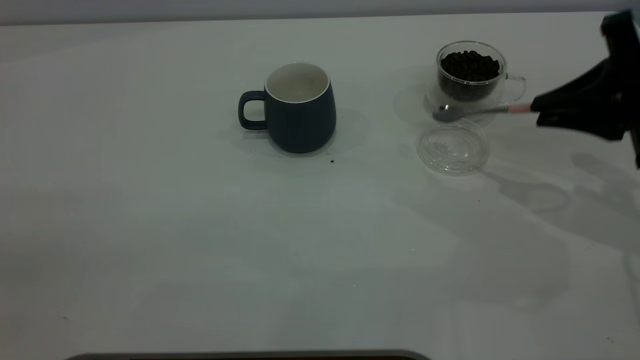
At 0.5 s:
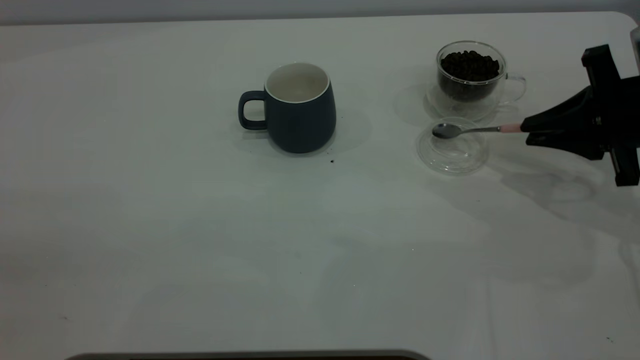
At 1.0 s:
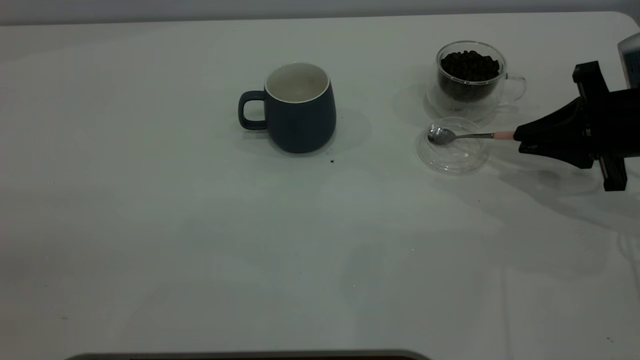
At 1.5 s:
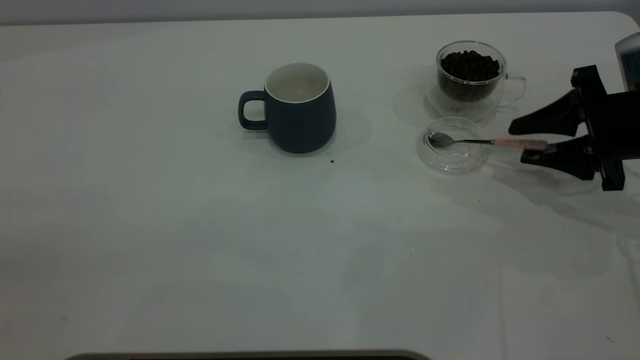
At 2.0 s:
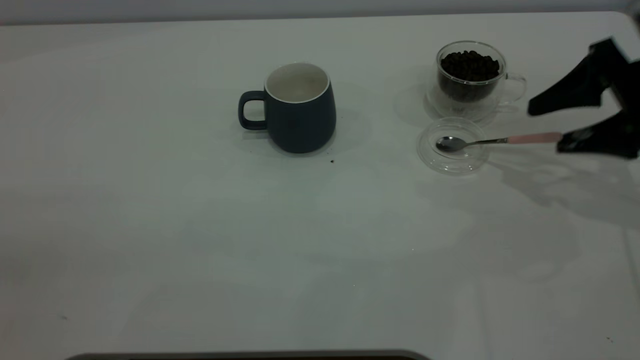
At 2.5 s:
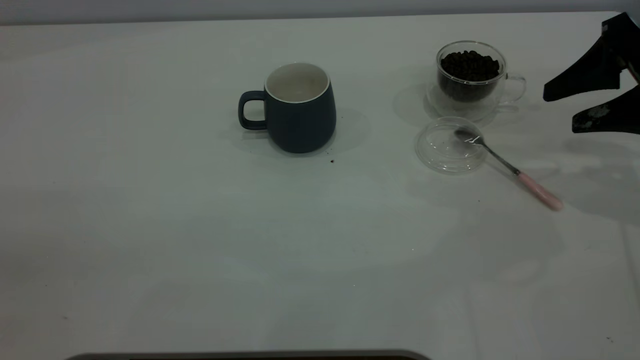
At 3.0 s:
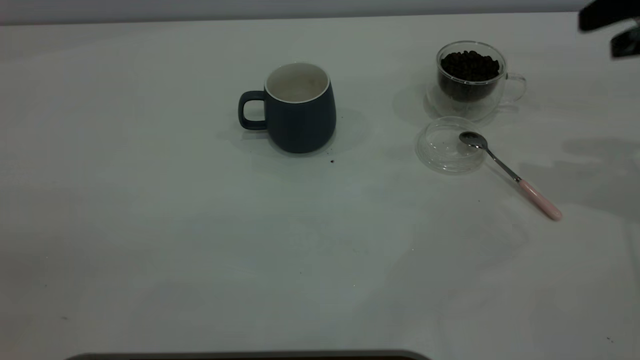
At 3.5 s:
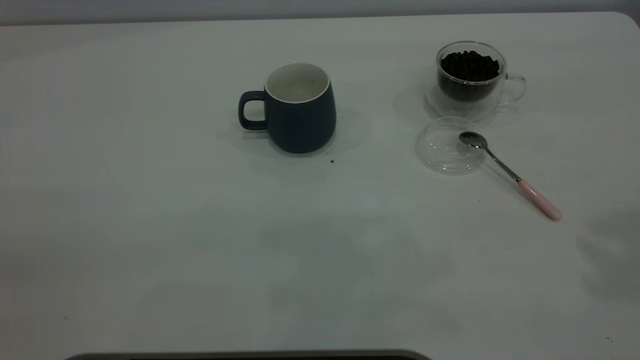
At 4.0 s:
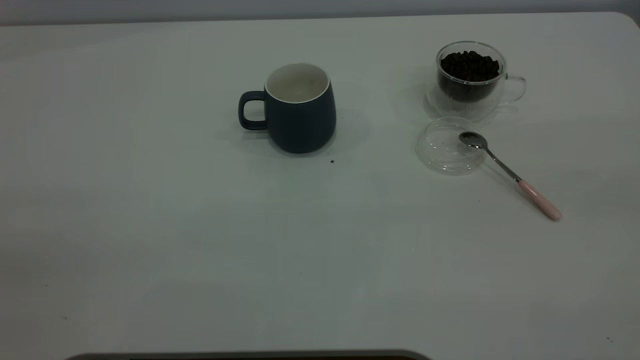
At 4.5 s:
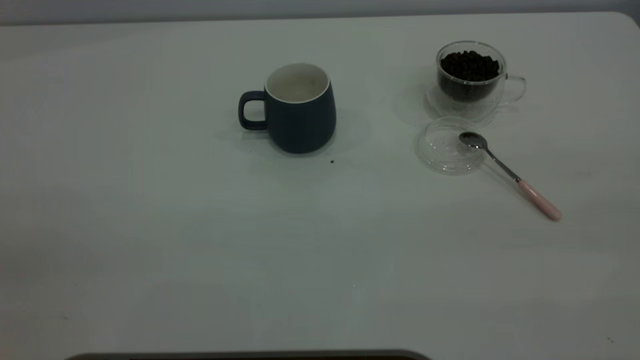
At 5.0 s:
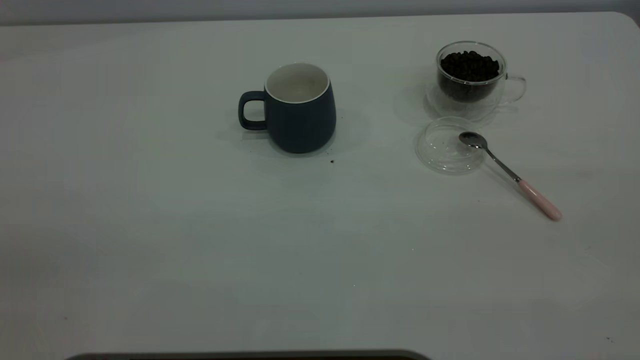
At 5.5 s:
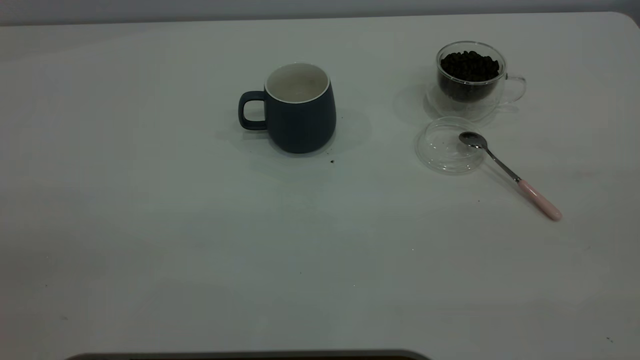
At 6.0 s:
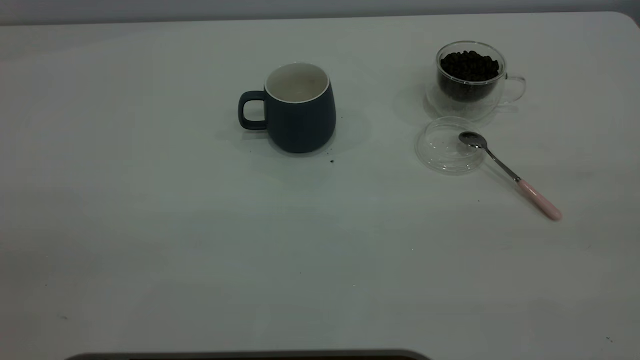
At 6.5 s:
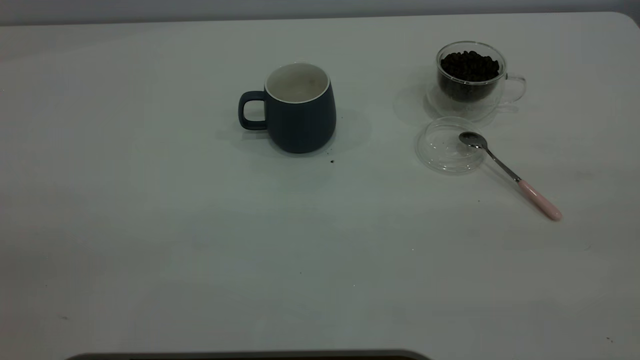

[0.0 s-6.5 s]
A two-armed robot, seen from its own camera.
Task of the whole recording: the left gripper place the grey cup in the center of the table, the right gripper take the pink spoon from the cup lid and scoop out the coffee beans from the coffee cup and put them into the grey cup, the right gripper put the spoon back into the cup lid.
Step, 0.0 to 2.5 s: Place the spoon back in its original place.
0.0 to 2.0 s: The right gripper opens its fingers.
2.0 to 4.5 s: The right gripper heads backward and upward, covering some 40 cm.

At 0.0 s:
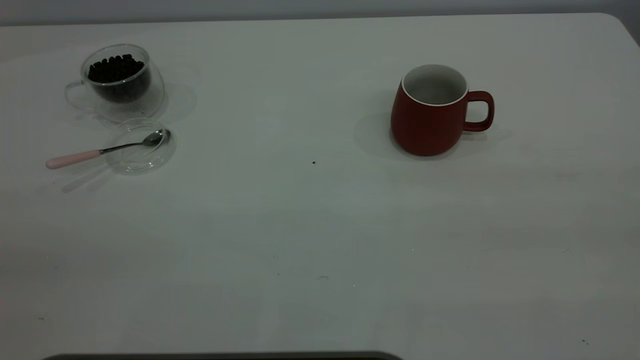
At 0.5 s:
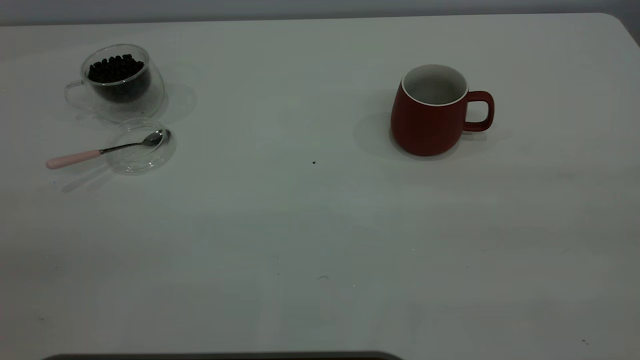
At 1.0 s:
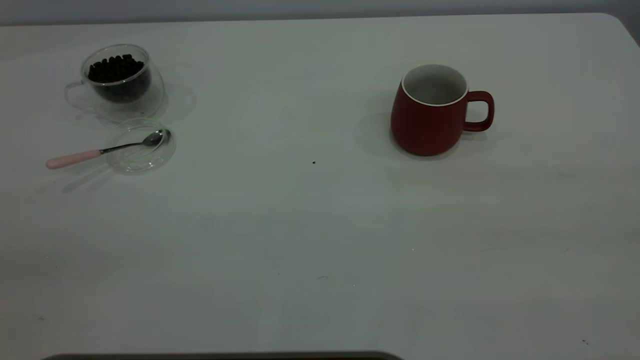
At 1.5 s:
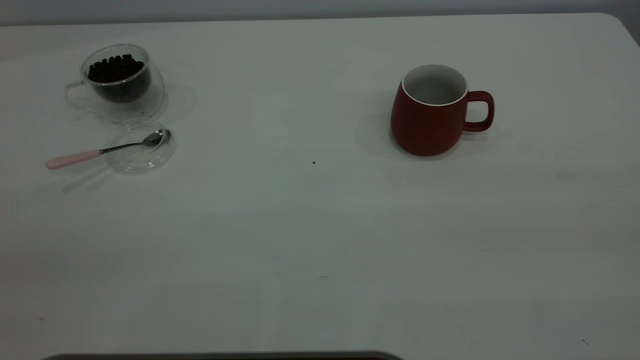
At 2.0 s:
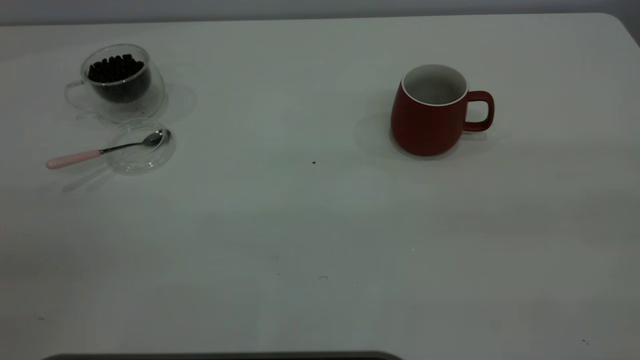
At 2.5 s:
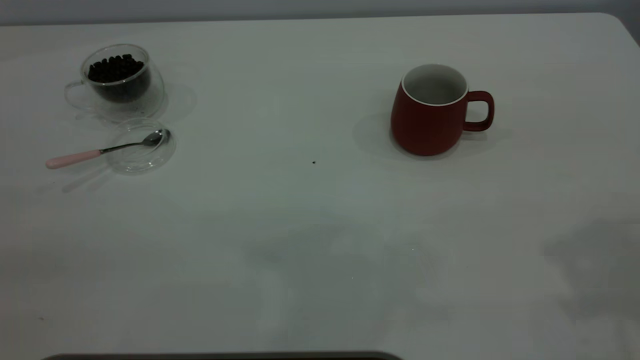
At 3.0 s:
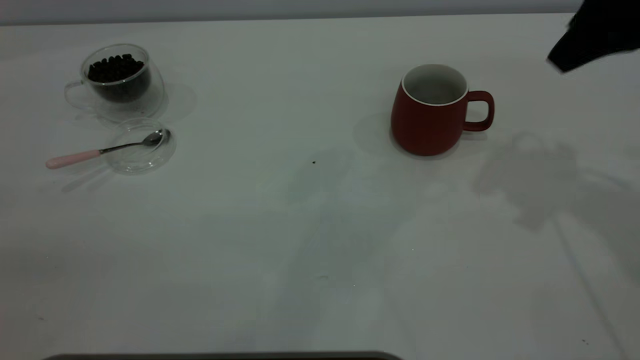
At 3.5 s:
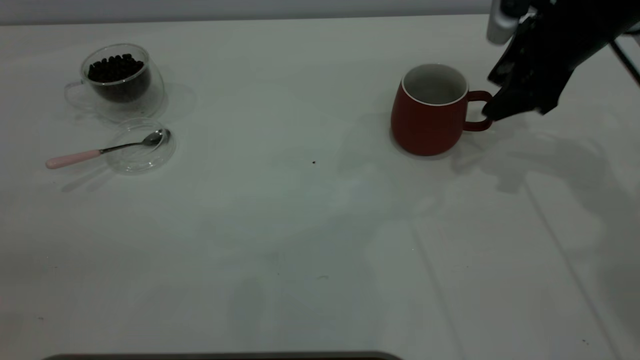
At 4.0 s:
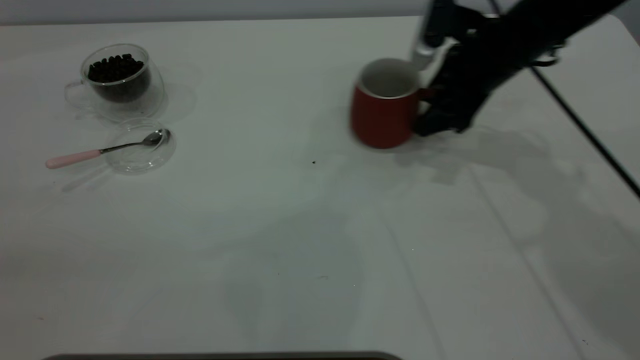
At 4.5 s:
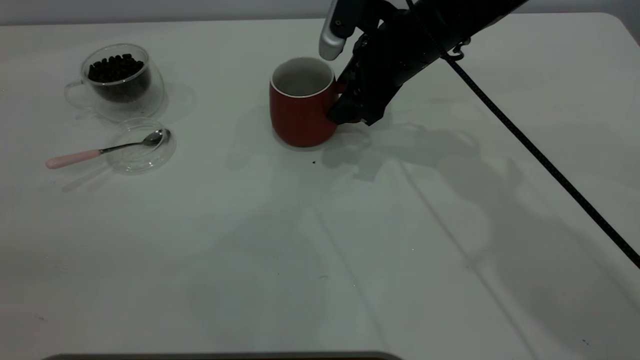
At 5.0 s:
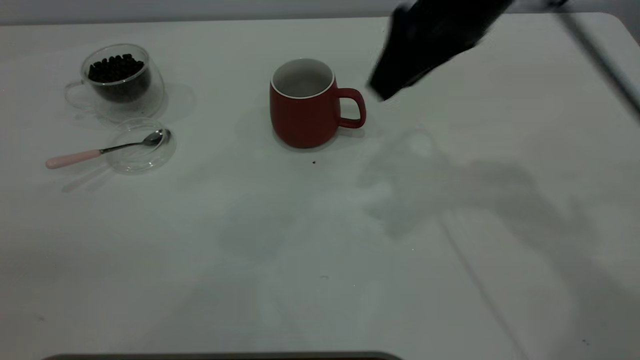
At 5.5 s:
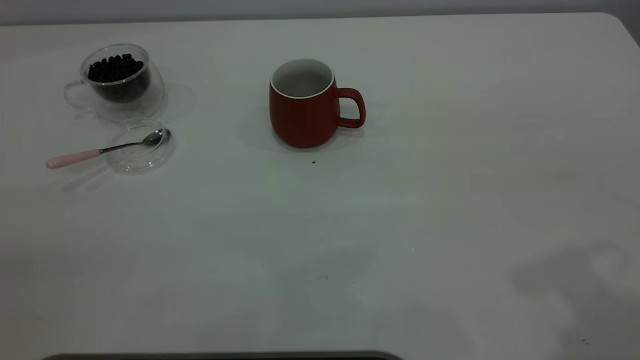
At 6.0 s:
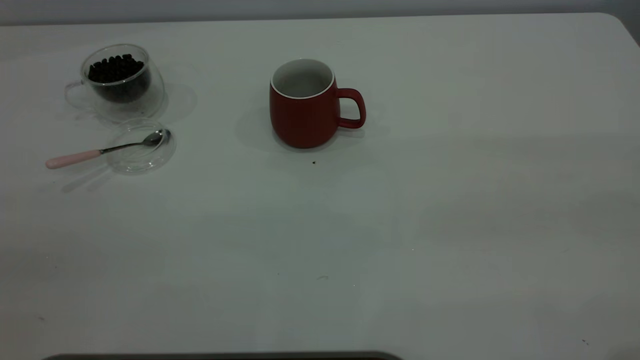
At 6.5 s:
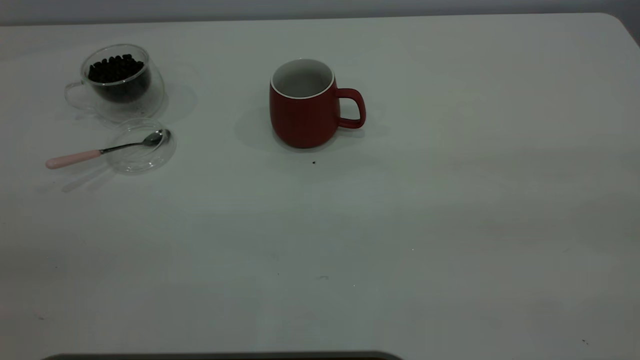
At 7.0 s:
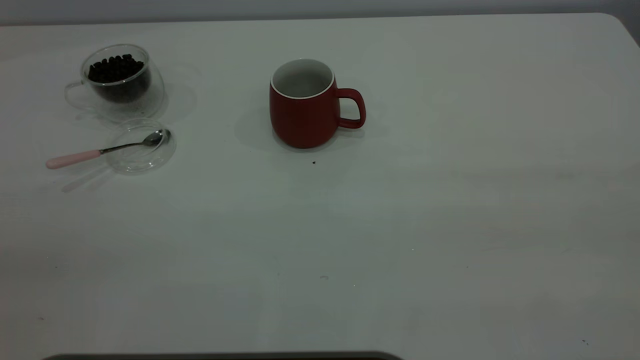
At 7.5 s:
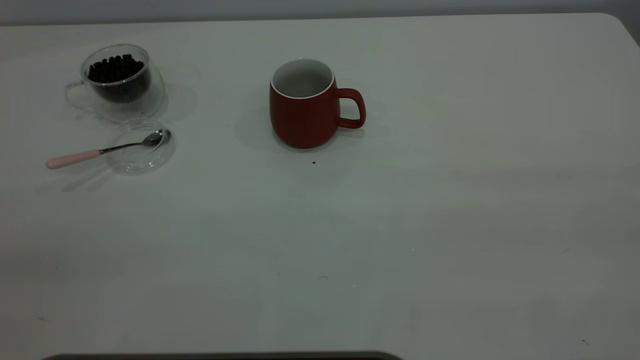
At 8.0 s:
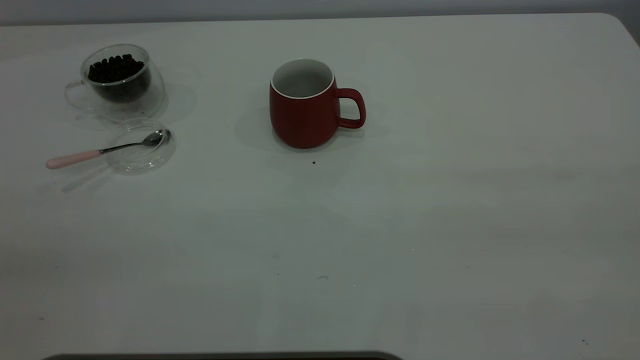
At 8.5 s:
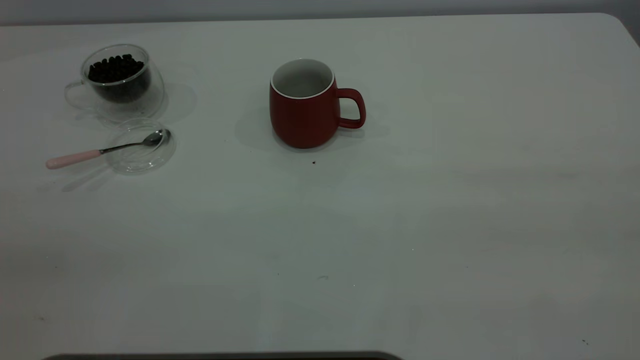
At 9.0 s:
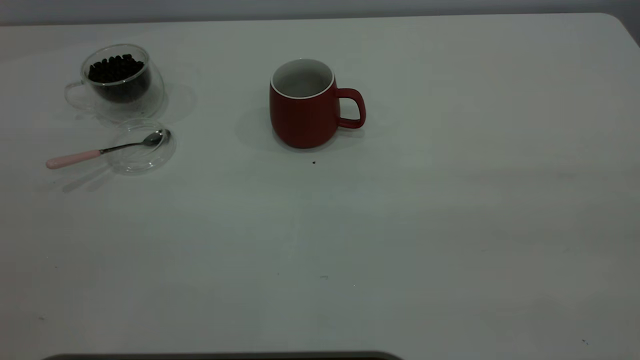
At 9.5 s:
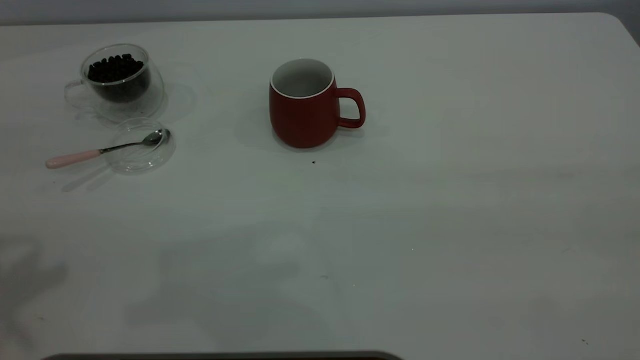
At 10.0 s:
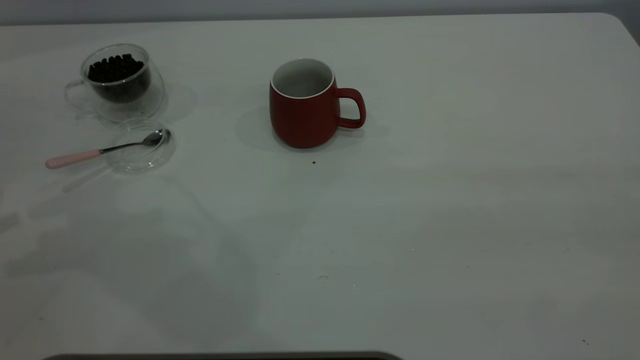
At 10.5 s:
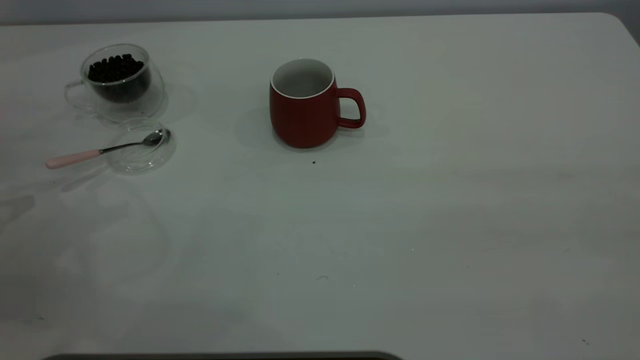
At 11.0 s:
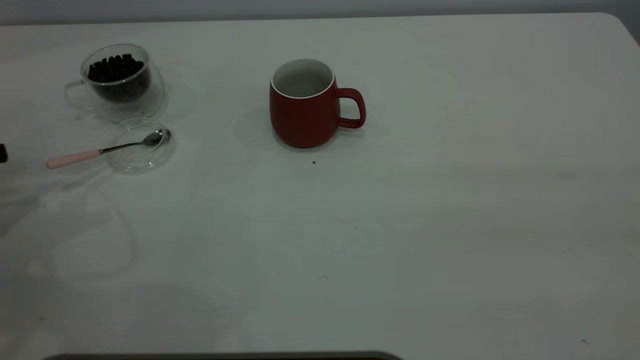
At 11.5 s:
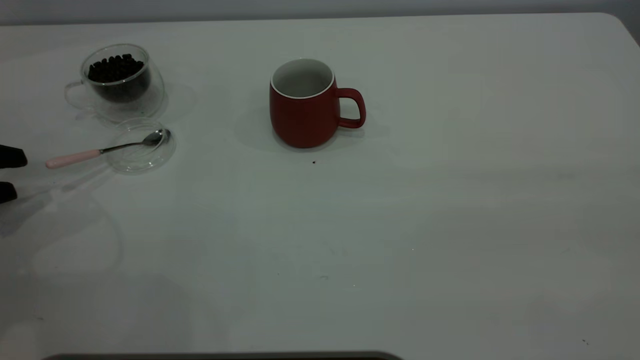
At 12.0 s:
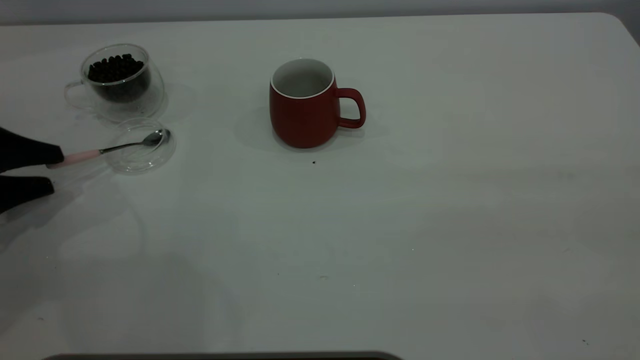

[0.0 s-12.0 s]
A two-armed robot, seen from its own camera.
Task of the whole recording: the right gripper place the red cup in the center of the table, the left gripper take the pink spoon from the cup lid and scoop out the coffee beans from the coffee cup and put them into the red cup, the left gripper put the spoon back into the cup lid.
Step, 0.0 to 4.5 s: Move the cup to the center of view.
2.0 to 4.0 s: The right gripper shifts about 50 cm forward and downward.
4.0 to 6.0 s: The right gripper moves backward and upward, roughly 40 cm.
10.0 to 12.0 s: The left gripper shifts some 15 cm downward, and opens up.

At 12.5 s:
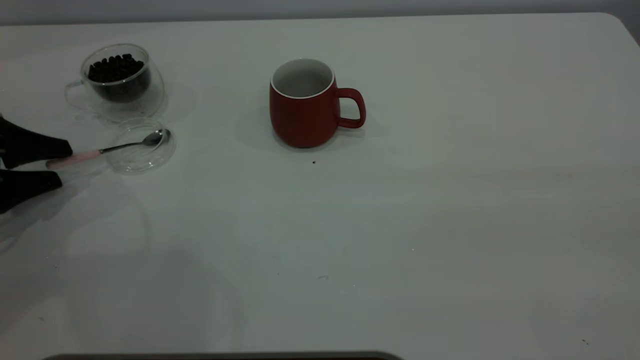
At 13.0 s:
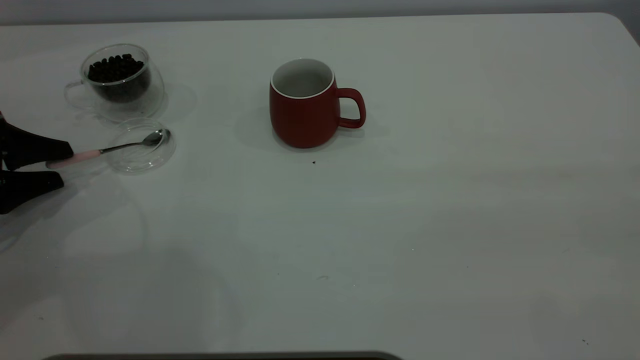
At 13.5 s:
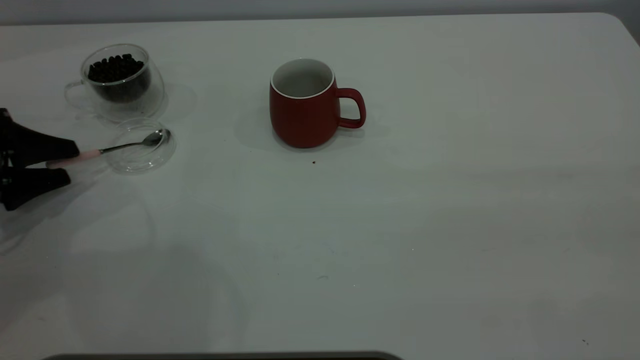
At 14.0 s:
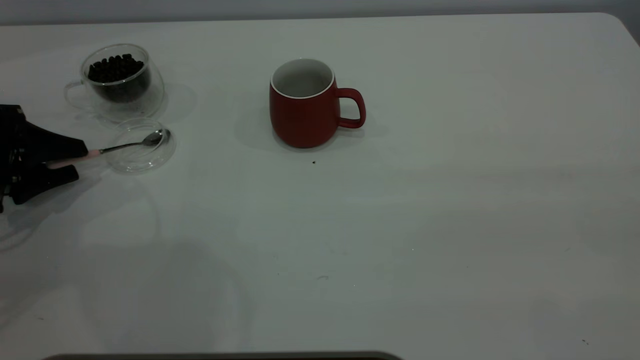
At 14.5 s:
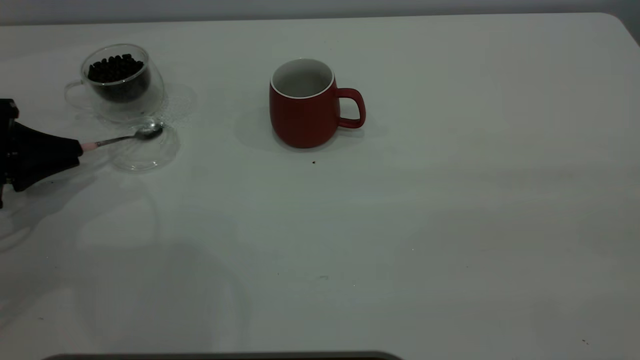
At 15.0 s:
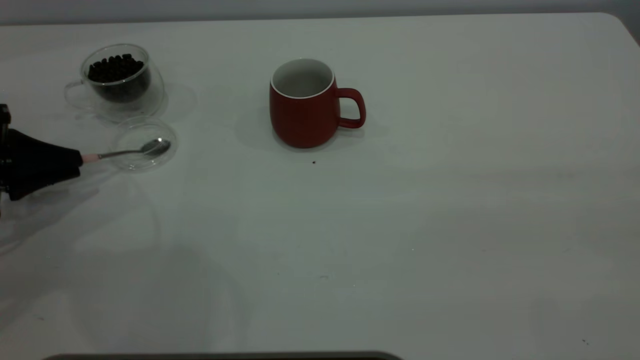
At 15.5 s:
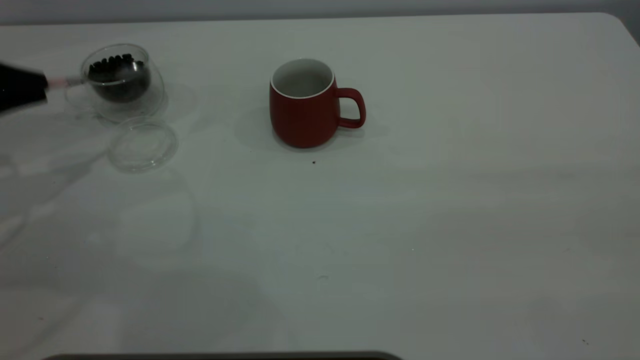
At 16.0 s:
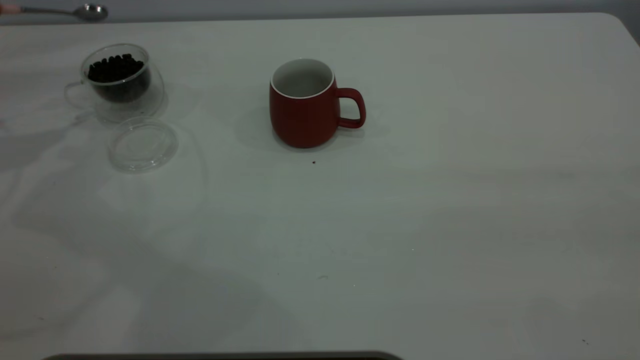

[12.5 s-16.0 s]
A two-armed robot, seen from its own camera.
Task of the whole recording: the right gripper place the red cup in the center of the table, the left gripper take the pink spoon from the cup lid and scoop out the coffee beans from the coffee cup and put them into the red cup, the left gripper put the spoon back into the cup lid.
Step, 12.5 to 15.0 s: Pick up the spoon.
12.5 to 14.5 s: The left gripper closes up.
14.5 to 16.0 s: The left gripper moves upward and forward, approximately 15 cm.
